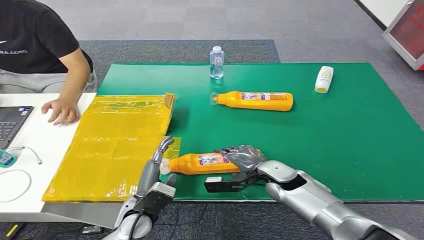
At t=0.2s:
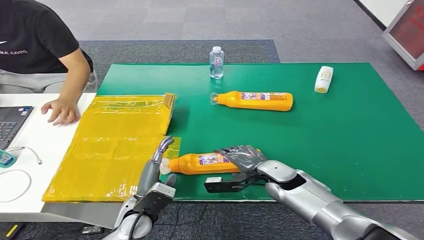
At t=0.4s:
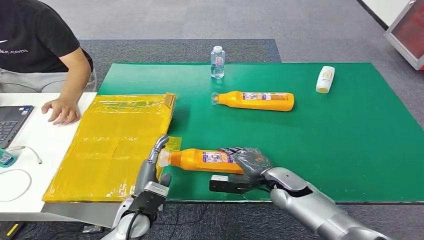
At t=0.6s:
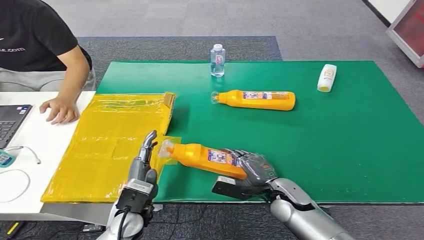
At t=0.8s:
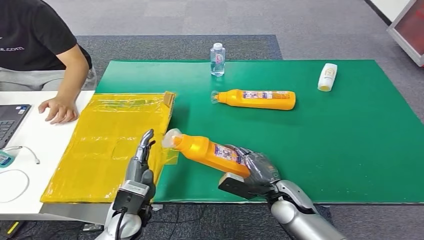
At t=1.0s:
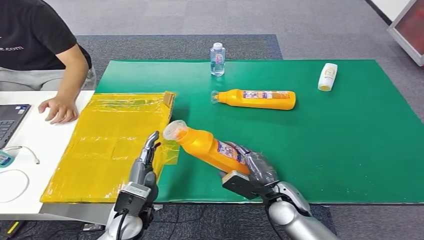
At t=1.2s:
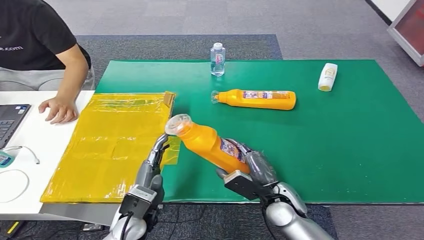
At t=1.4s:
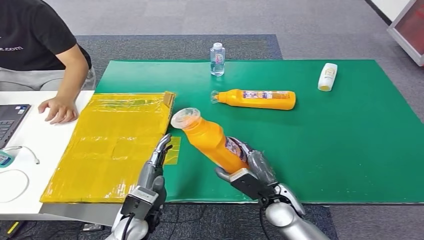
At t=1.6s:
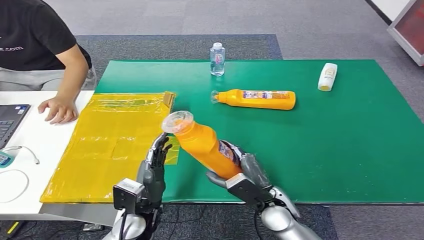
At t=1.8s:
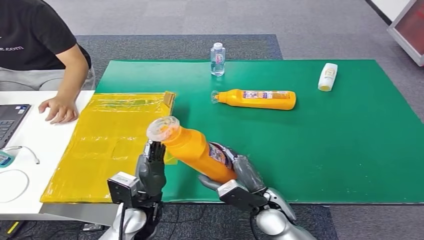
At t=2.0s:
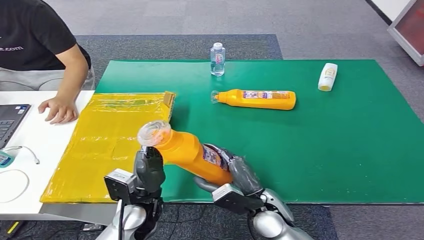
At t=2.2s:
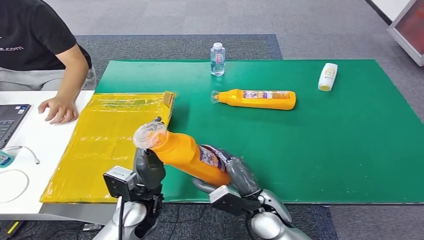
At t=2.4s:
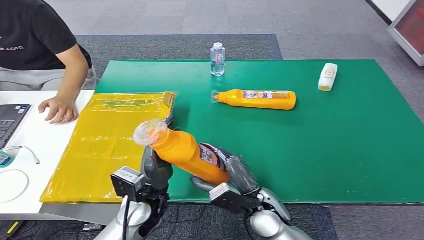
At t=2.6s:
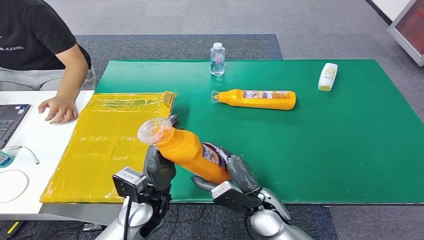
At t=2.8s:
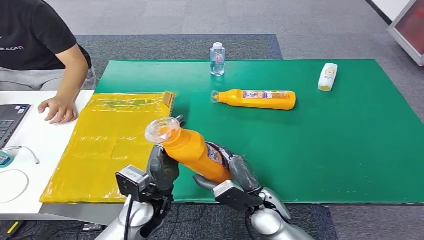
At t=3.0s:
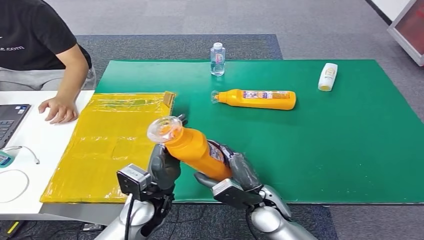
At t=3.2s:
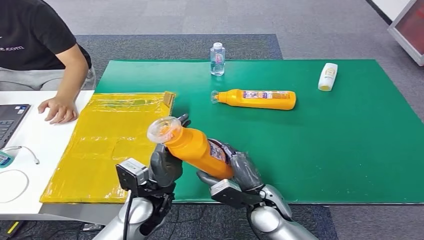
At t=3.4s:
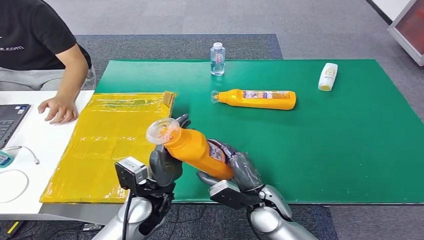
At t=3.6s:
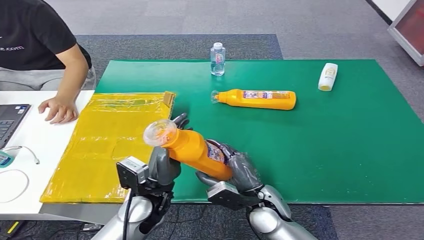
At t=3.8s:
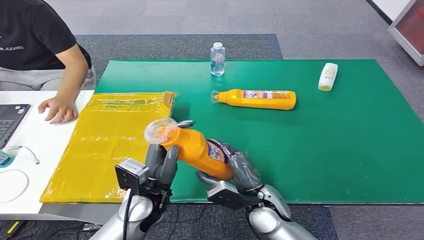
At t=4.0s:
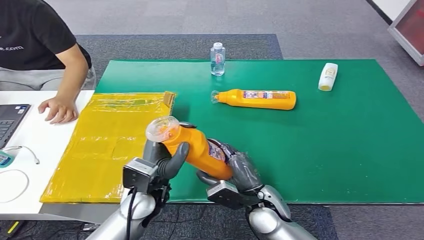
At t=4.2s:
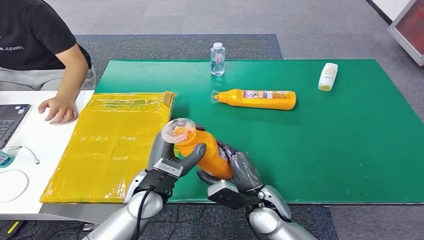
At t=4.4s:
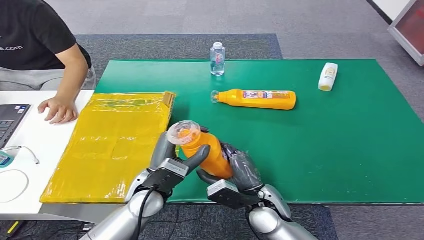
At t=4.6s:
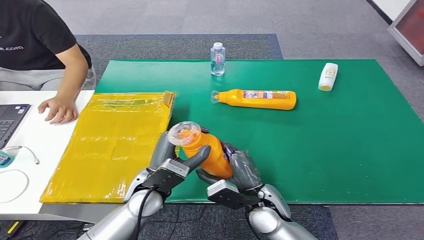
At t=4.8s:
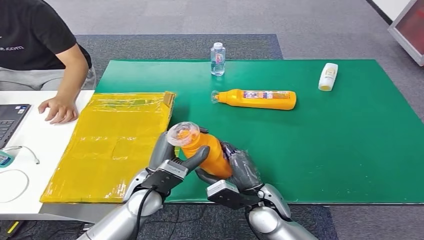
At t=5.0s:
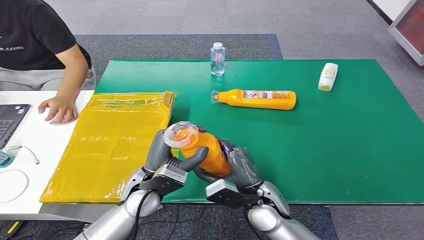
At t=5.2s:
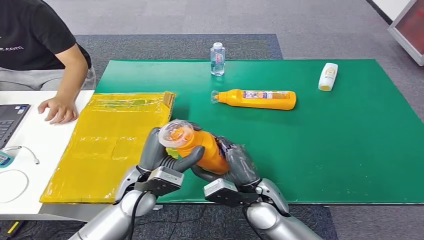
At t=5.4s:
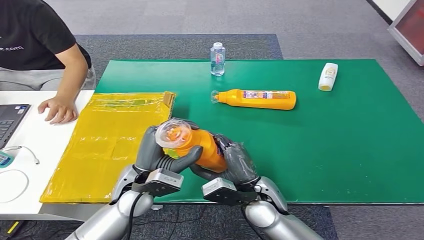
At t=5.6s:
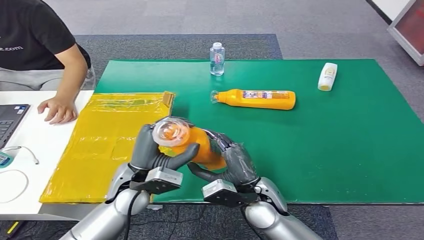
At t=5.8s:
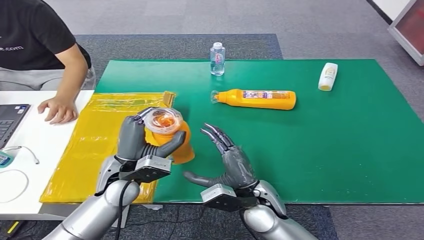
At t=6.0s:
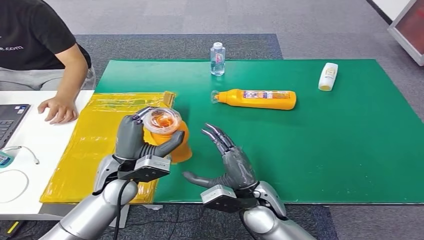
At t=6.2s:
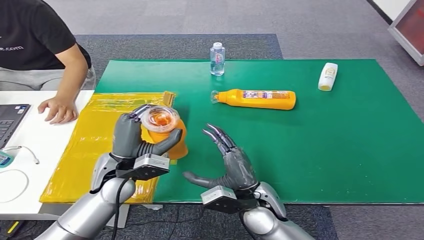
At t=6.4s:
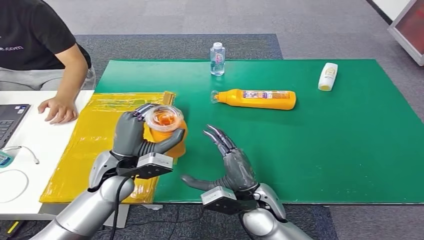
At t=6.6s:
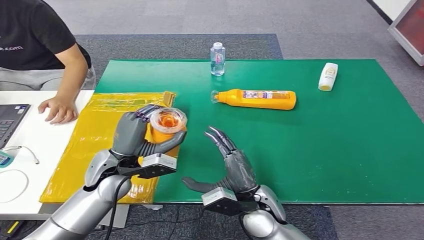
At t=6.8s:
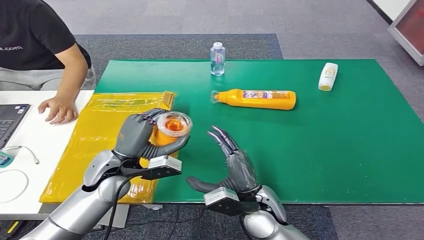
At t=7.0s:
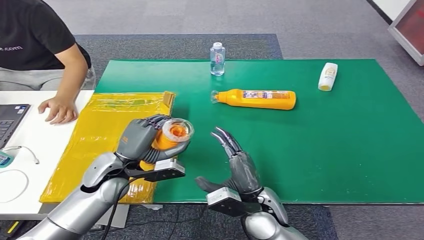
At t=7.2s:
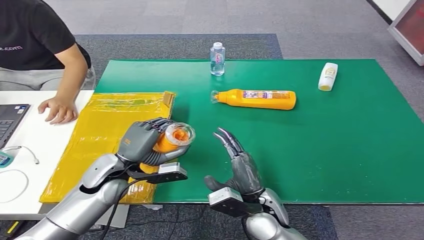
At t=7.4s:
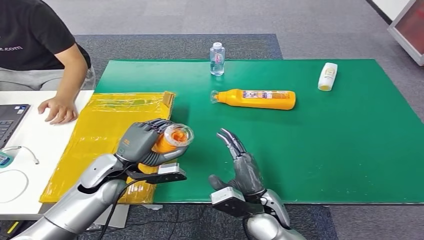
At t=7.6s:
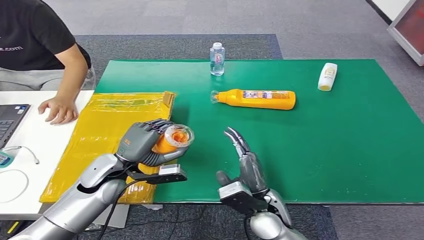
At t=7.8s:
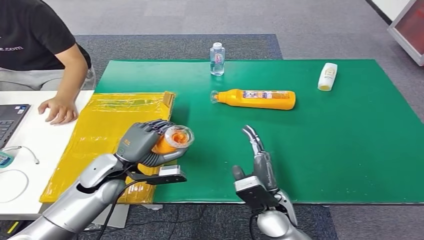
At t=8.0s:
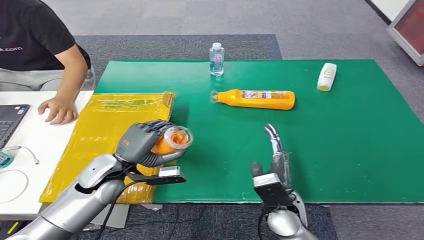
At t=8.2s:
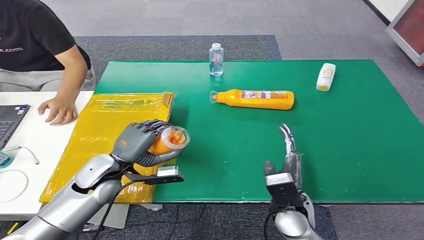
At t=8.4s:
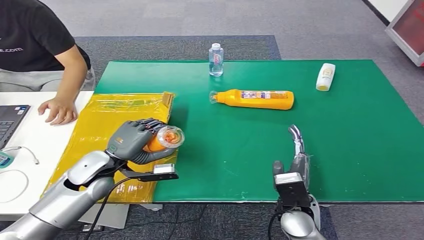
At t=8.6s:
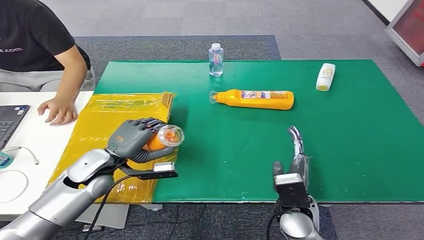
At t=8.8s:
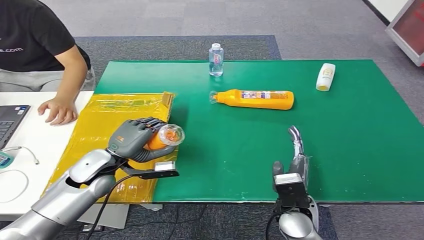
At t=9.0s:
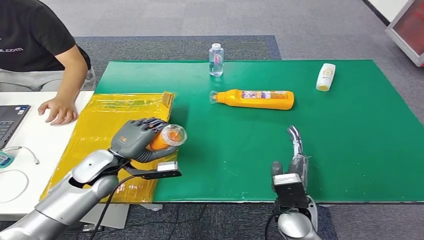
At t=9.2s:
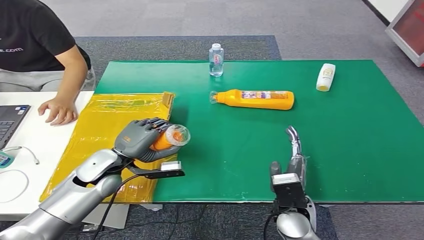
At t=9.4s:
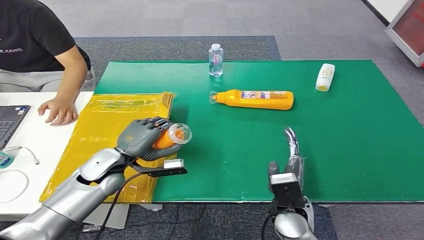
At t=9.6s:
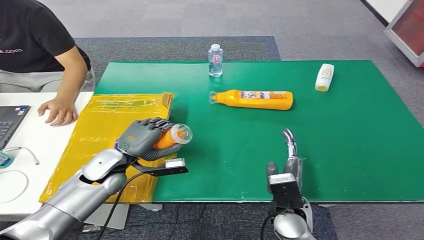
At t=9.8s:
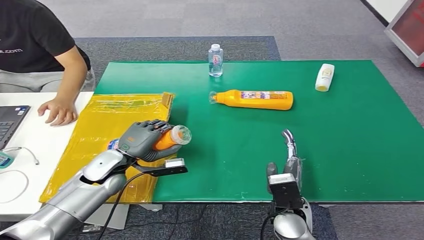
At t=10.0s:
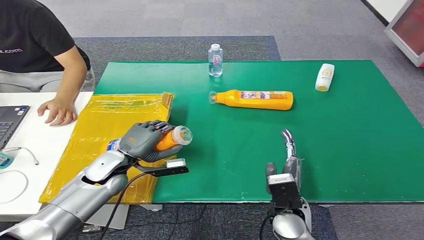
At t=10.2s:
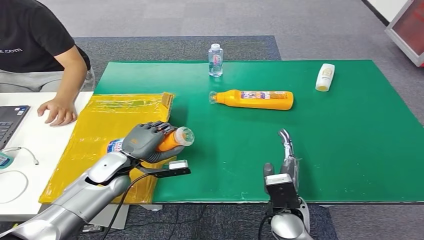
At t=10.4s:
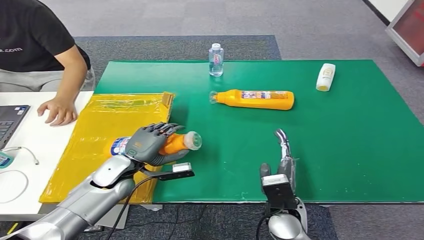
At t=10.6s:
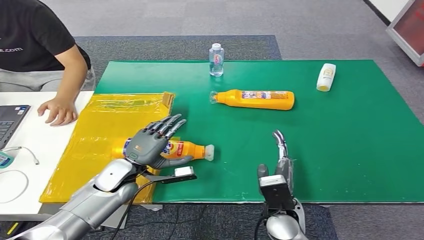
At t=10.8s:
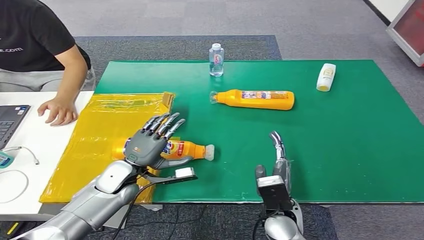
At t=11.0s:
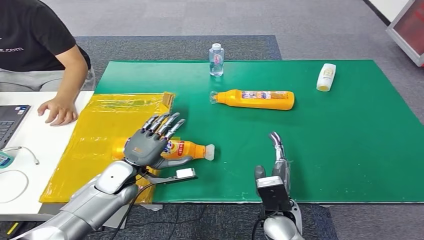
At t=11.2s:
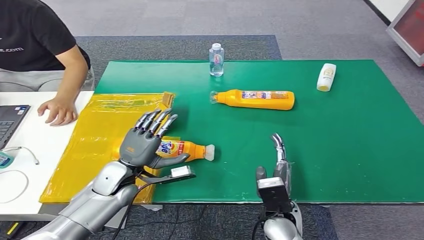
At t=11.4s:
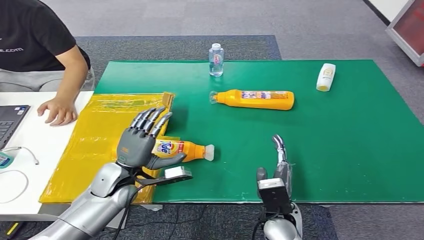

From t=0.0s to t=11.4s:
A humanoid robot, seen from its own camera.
Step, from t=0.0s to t=1.6s: Pick up the bottle from the table.
Step, from t=2.0s to t=11.4s: Turn the bottle to the front side.
From t=1.4s to t=2.8s: The left hand changes place by approximately 5 cm.
From t=4.2s to t=5.6s: The hands make only small movements.
From t=5.6s to t=7.2s: The left hand heads to the left, covering approximately 5 cm.
From t=7.2s to t=8.6s: The right hand shifts some 5 cm to the right.
From t=8.6s to t=10.0s: There are only small adjustments of the hands.

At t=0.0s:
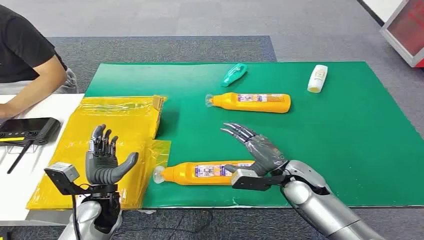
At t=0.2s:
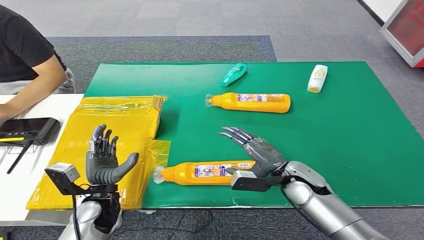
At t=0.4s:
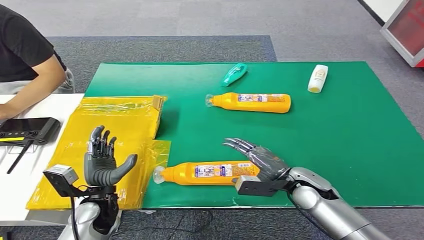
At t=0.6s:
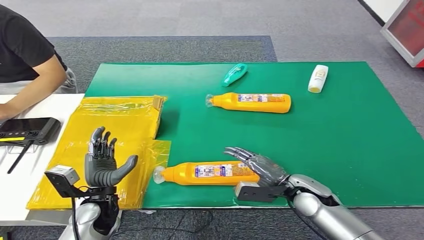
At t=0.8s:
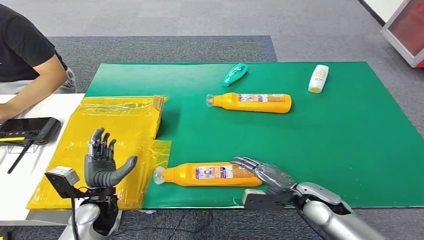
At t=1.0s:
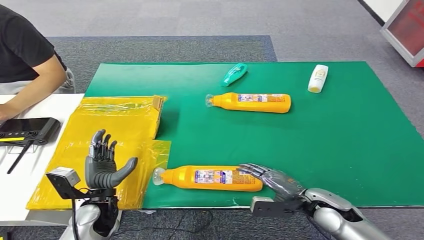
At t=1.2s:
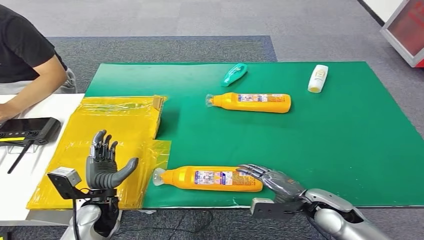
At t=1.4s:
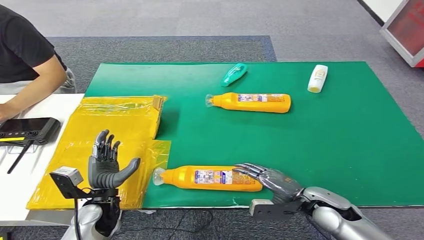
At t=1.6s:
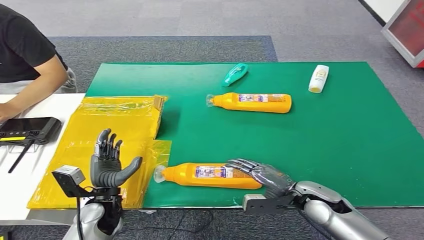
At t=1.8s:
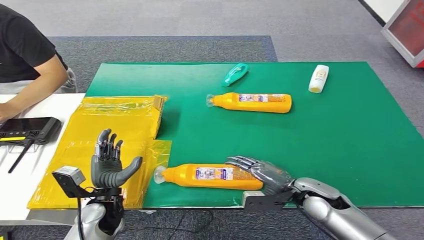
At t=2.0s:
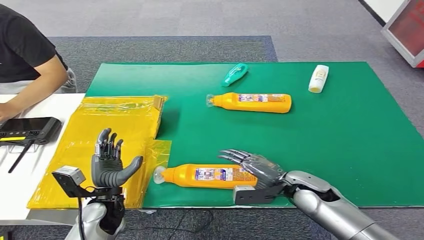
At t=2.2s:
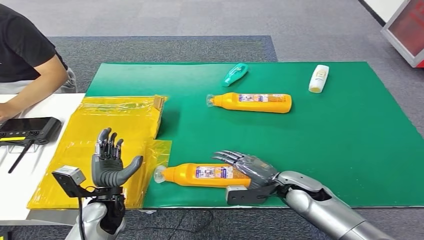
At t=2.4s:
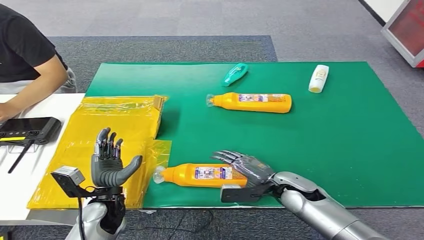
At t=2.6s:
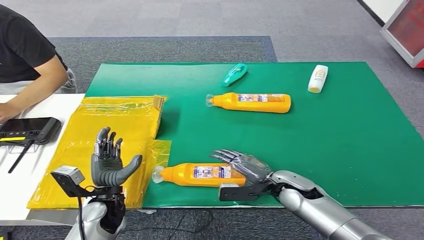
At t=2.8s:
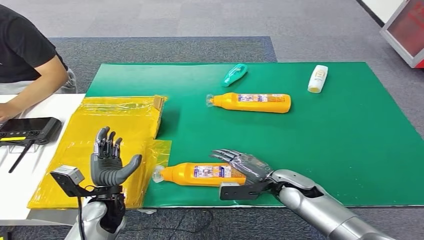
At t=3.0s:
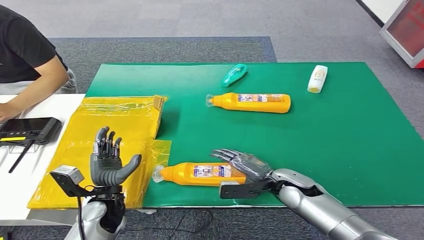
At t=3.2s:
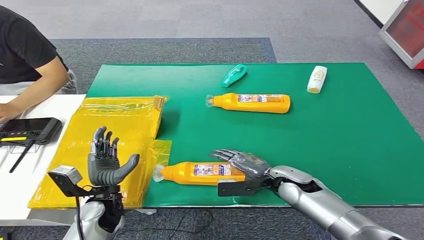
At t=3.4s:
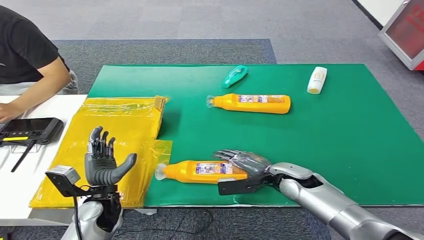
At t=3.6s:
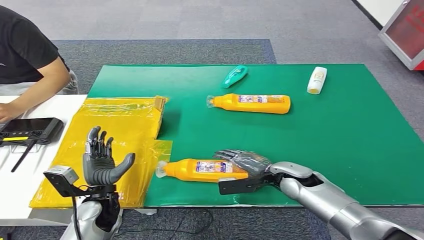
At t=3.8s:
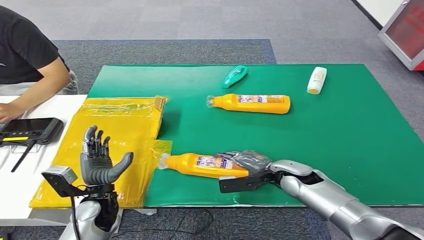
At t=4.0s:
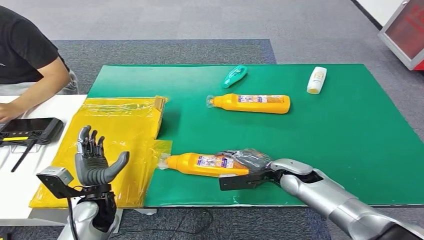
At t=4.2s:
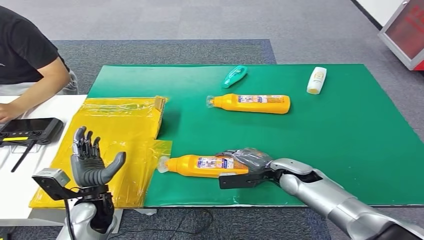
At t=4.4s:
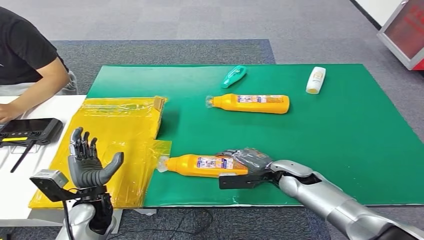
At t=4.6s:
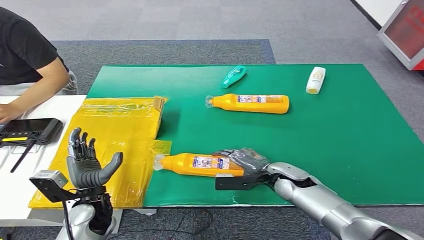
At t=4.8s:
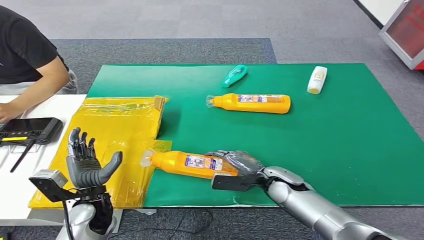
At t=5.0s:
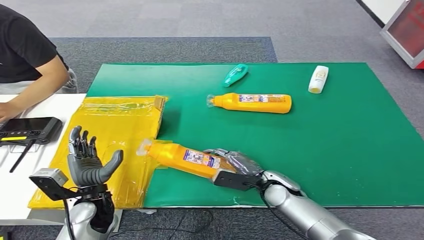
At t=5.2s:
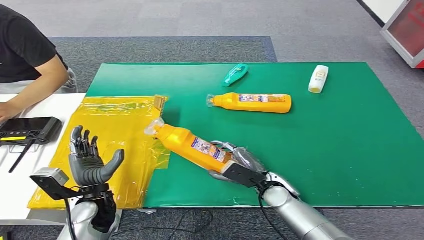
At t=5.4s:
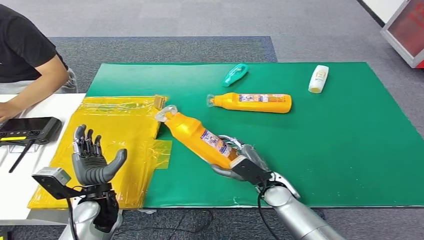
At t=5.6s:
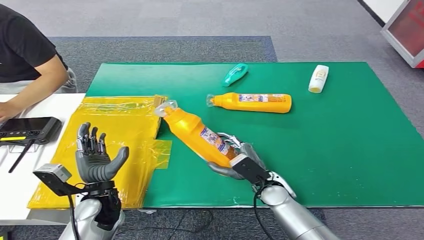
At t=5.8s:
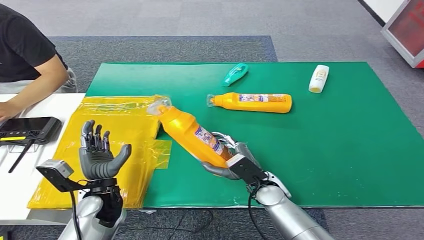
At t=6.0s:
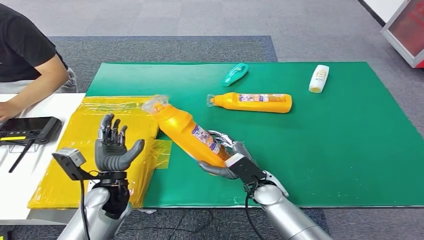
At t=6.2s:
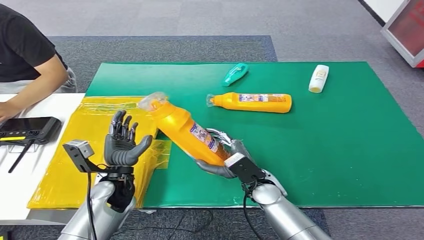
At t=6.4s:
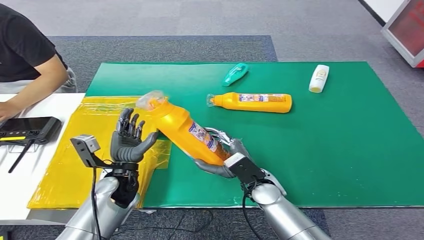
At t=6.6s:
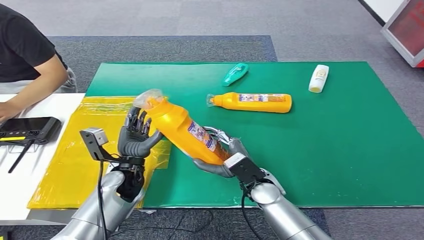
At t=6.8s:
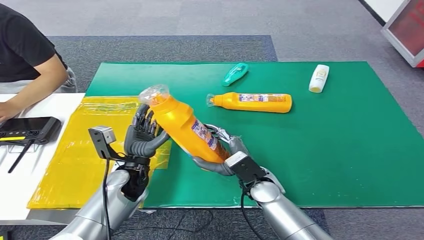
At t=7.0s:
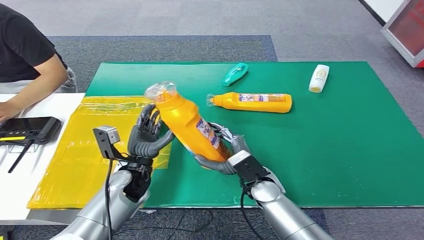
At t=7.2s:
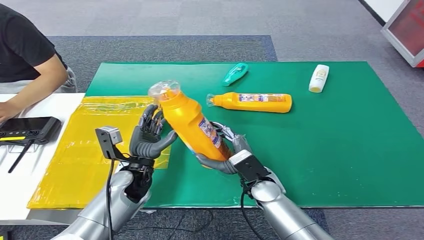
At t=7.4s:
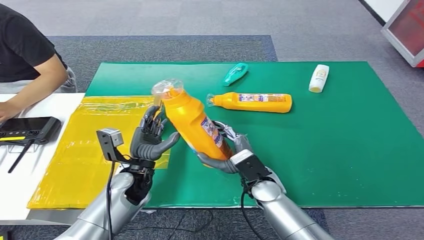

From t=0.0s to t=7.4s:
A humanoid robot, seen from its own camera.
From t=1.4s to t=3.0s: The right hand moves forward and to the left, roughly 10 cm.
From t=6.0s to t=7.4s: The left hand travels to the right by about 5 cm.
